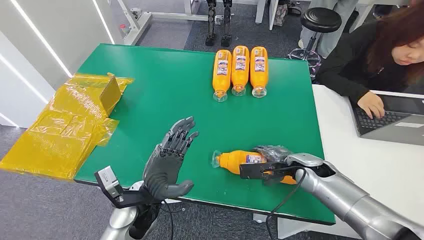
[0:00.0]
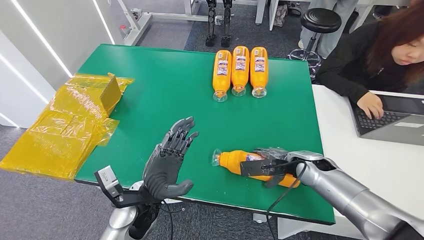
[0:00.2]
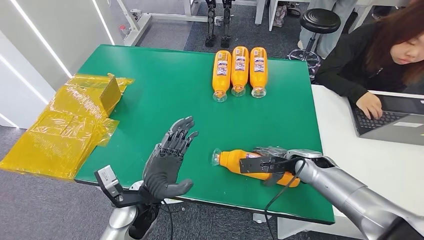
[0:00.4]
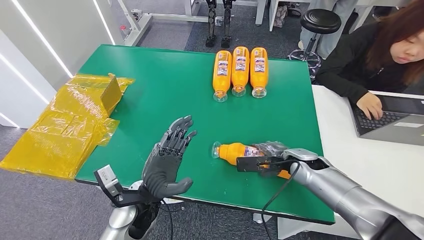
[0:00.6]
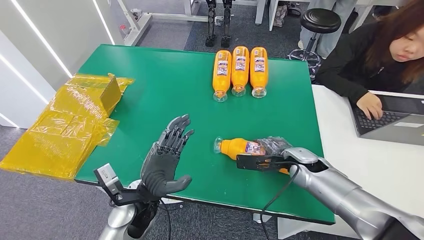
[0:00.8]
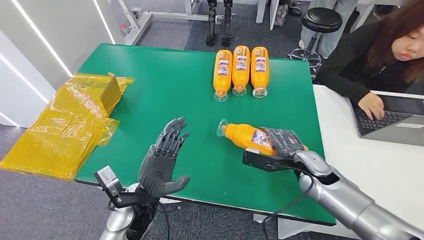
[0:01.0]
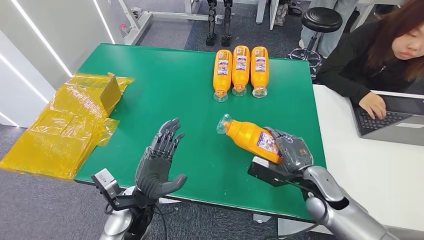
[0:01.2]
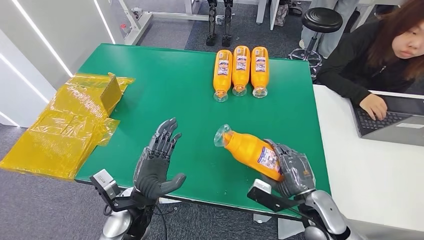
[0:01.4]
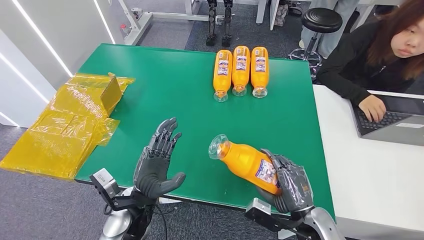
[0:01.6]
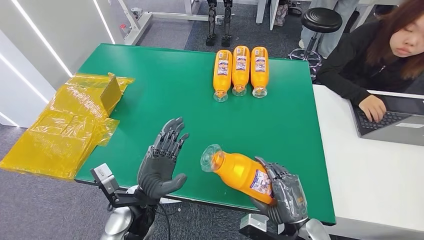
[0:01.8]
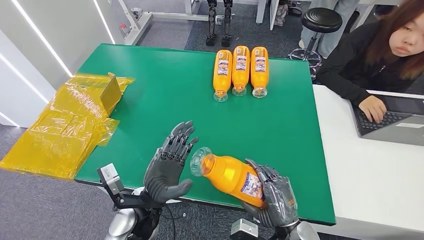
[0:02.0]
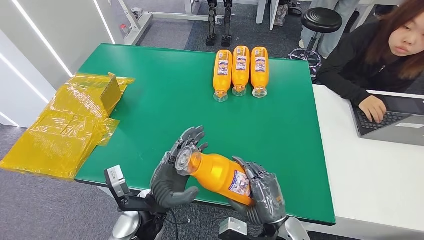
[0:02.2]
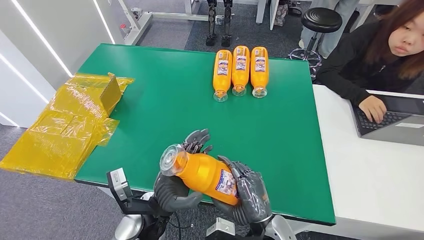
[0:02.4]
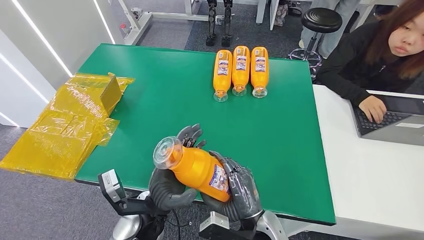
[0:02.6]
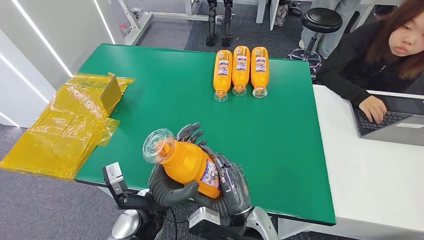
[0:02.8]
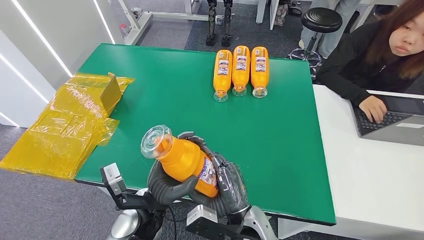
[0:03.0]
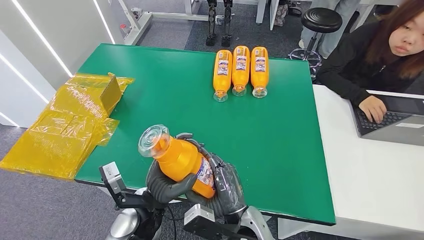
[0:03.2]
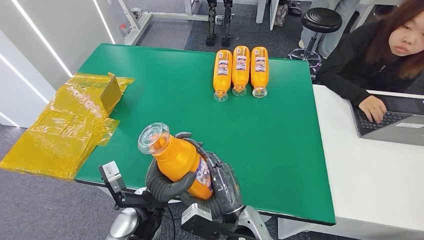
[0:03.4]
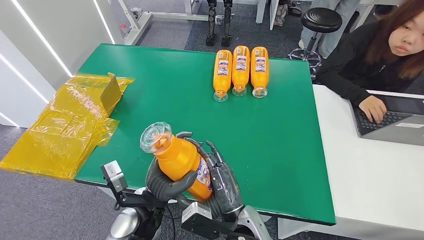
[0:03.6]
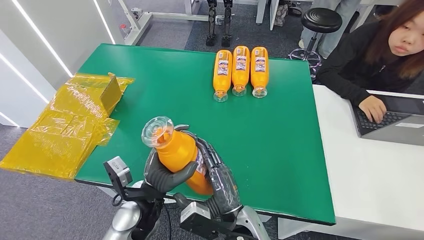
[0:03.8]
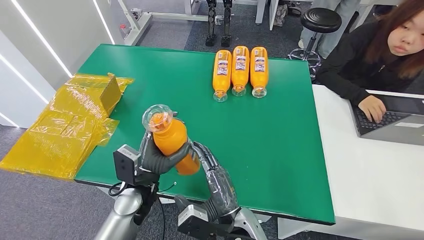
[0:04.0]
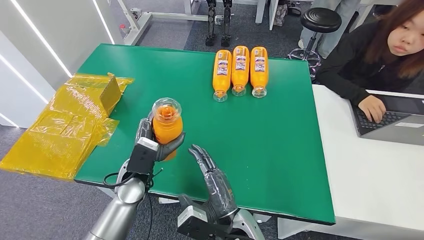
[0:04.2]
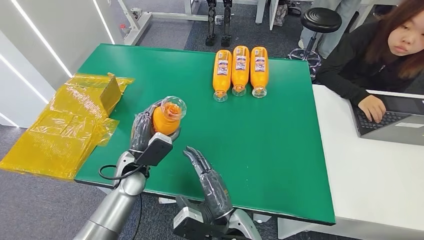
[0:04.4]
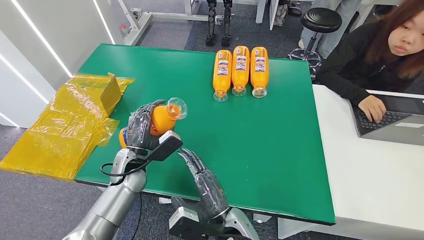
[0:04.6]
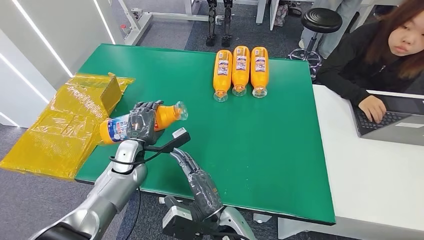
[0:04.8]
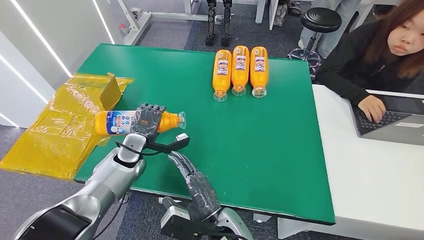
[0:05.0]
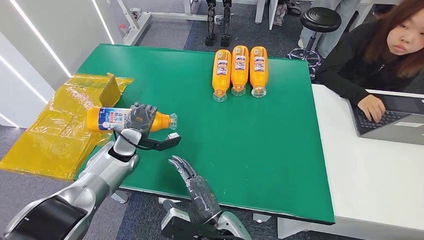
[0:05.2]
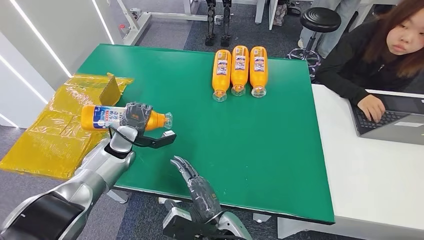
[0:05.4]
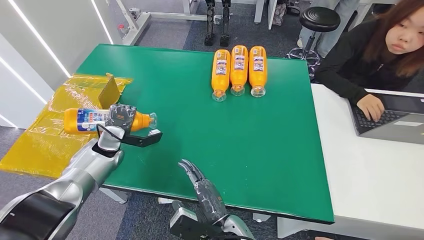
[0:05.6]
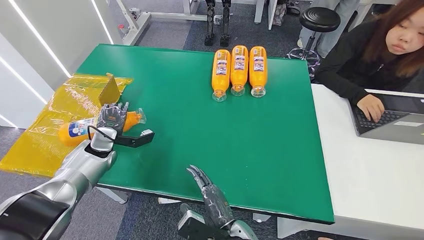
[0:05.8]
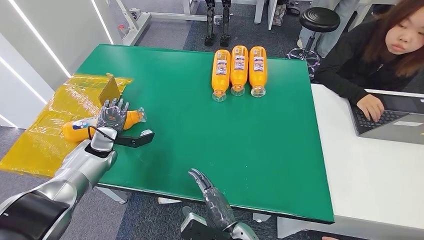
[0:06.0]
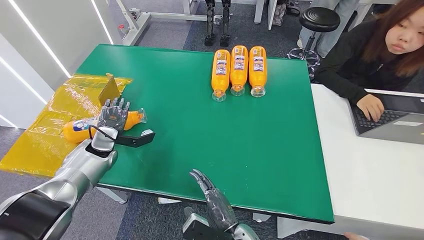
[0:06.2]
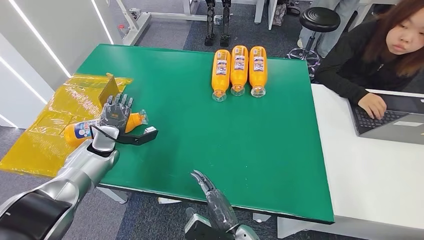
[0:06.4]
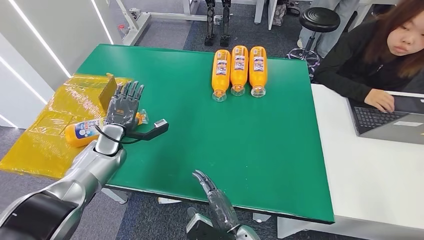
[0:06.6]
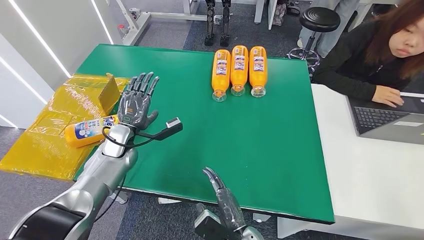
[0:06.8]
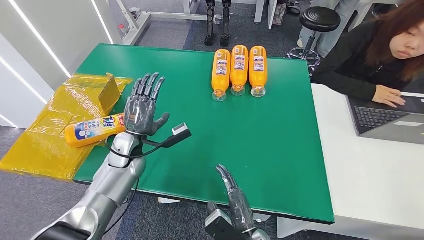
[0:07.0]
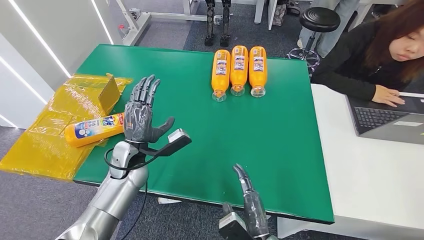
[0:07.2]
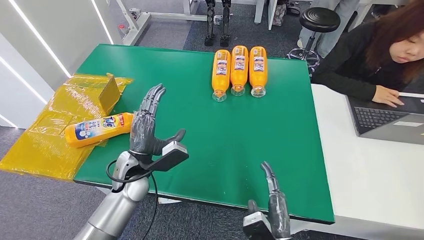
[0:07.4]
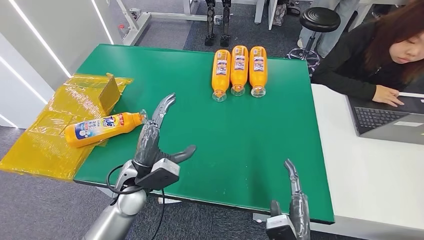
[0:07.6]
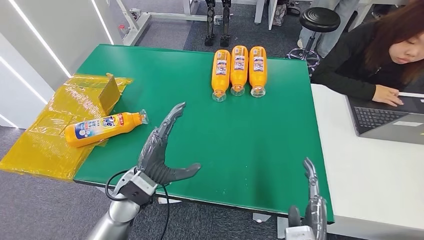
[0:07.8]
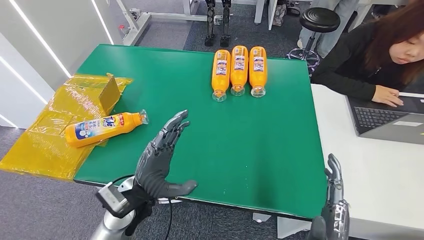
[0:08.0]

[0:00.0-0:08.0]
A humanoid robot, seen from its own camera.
Step, 0:00.0 to 0:02.6: Pick up the bottle from the table.
Step, 0:02.8 to 0:08.0: Turn the bottle to the front side.
0:01.6 to 0:03.2: The right hand shifts some 15 cm to the left.
0:03.2 to 0:04.8: The left hand goes about 20 cm forward and to the left.
0:06.4 to 0:08.0: The left hand is displaced to the right and backward by some 25 cm. Meanwhile the right hand heads to the right, upward and backward, covering some 15 cm.

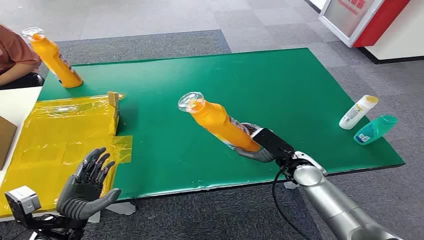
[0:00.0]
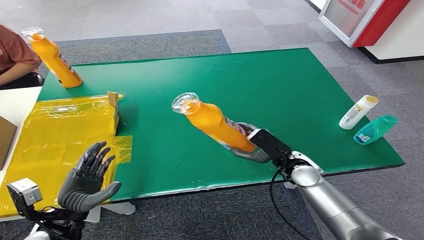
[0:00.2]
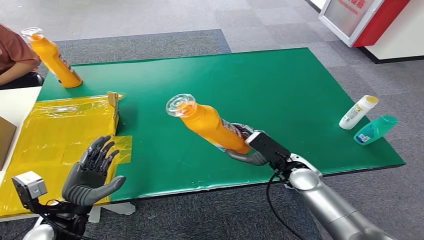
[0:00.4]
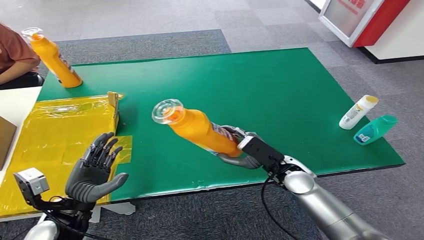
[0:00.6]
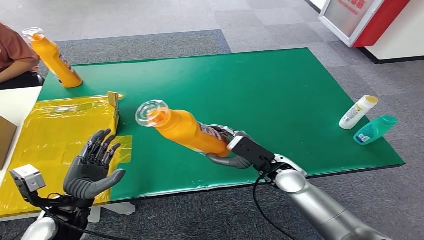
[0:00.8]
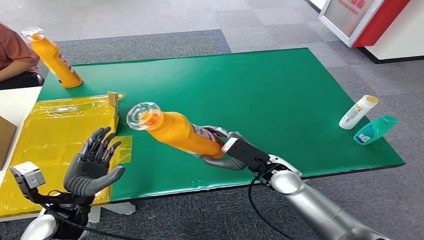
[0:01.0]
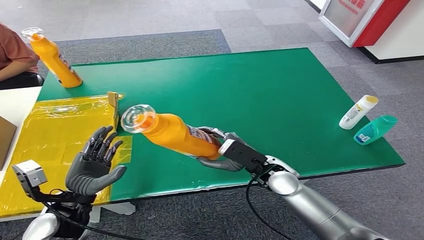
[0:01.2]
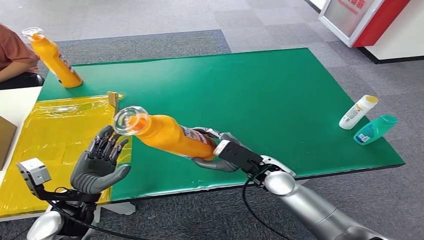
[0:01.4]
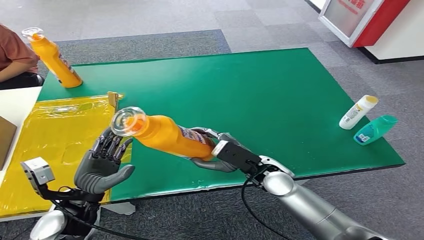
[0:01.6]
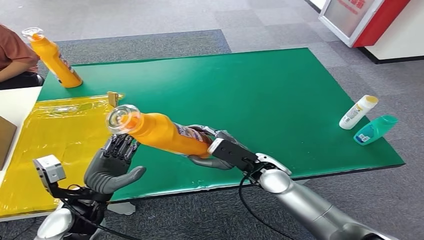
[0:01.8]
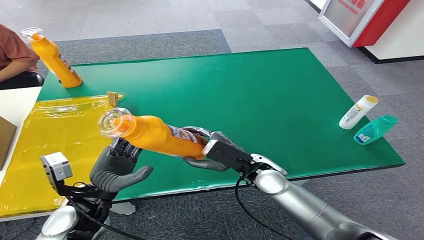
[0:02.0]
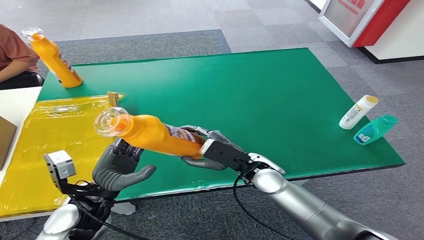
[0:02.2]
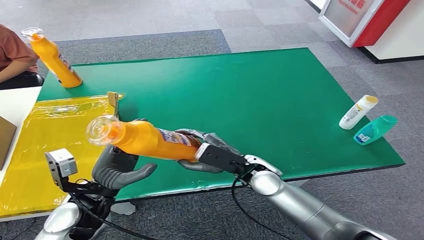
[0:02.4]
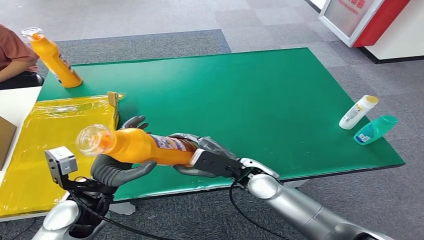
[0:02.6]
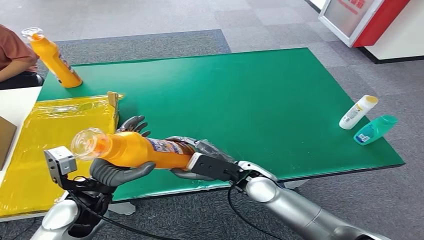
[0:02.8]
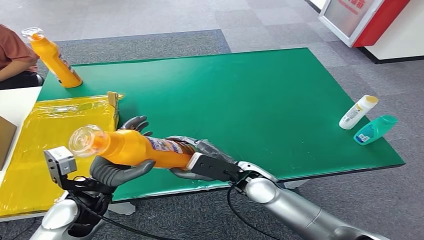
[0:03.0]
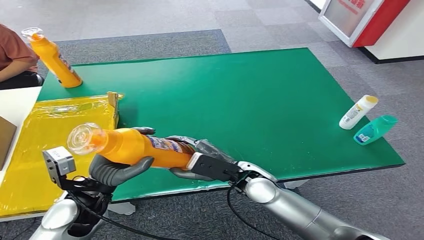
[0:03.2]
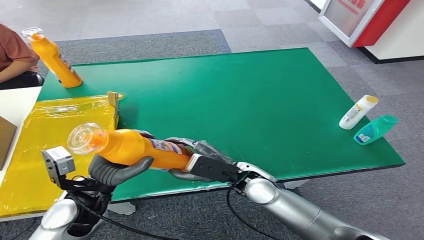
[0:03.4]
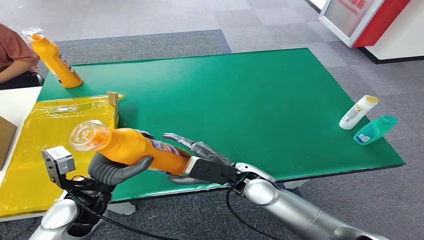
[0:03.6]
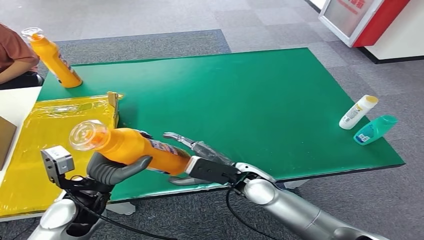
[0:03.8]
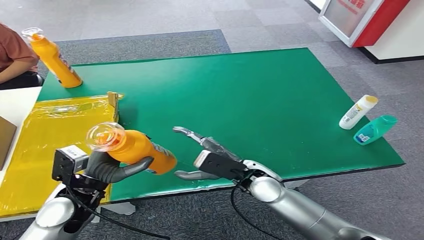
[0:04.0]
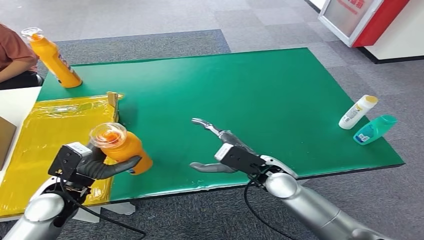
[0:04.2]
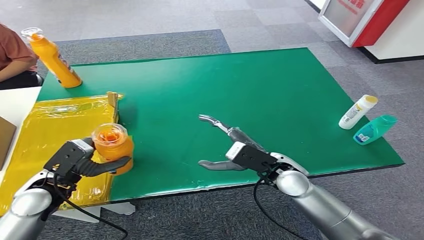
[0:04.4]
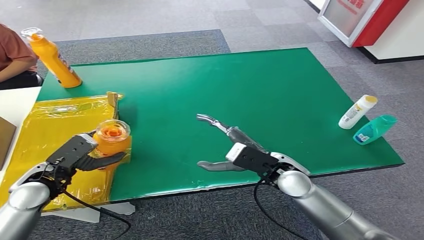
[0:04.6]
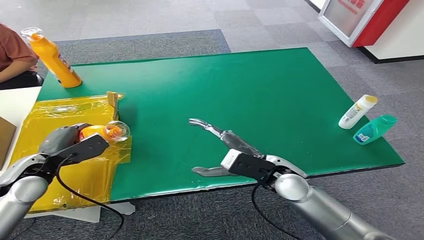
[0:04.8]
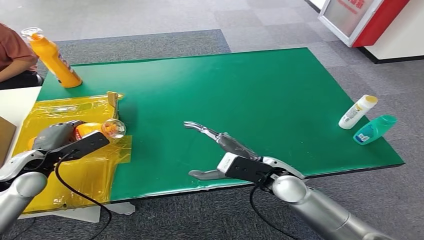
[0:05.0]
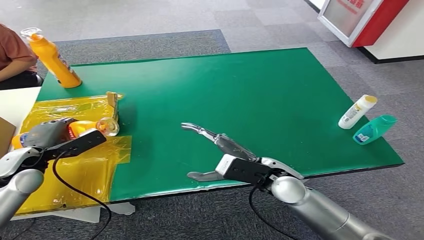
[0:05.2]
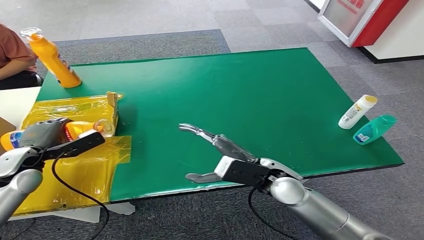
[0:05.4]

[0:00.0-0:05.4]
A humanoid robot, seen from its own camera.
Step, 0:00.0 to 0:00.4: Pick up the bottle from the table.
Step, 0:00.8 to 0:05.4: Turn the bottle to the front side.
0:01.4 to 0:04.0: The hands move only a little.
0:04.0 to 0:05.4: The left hand heads to the left and forward, covering about 15 cm.

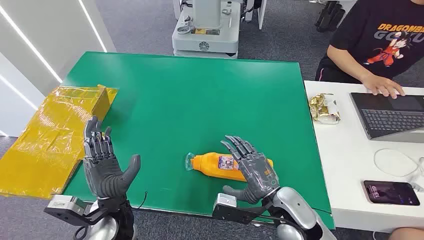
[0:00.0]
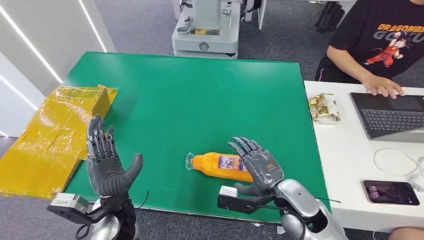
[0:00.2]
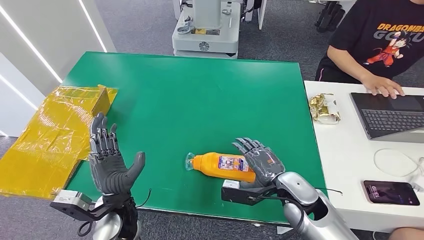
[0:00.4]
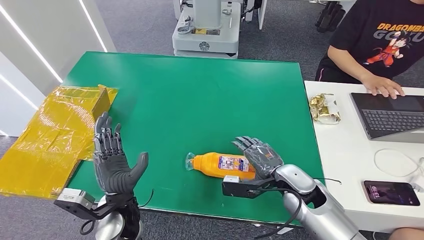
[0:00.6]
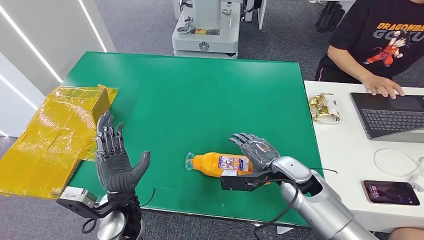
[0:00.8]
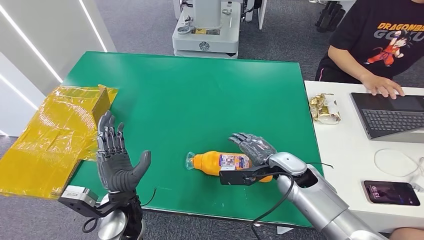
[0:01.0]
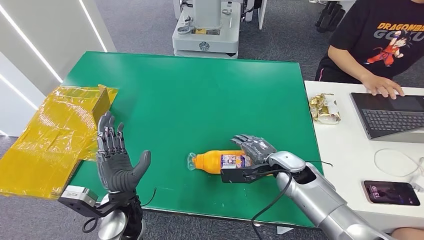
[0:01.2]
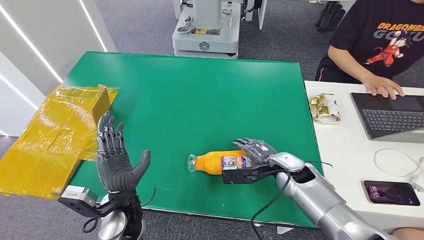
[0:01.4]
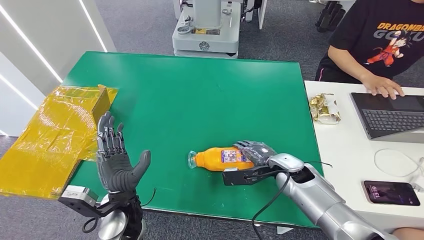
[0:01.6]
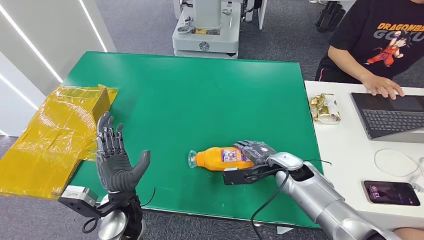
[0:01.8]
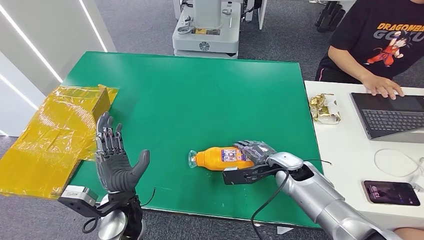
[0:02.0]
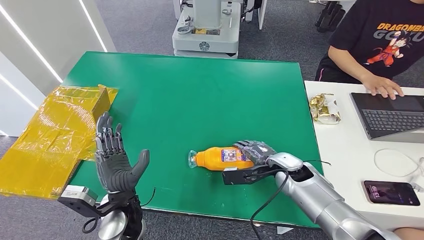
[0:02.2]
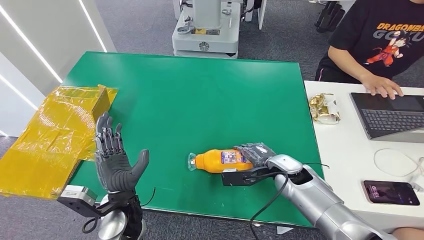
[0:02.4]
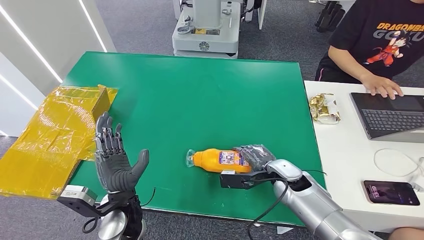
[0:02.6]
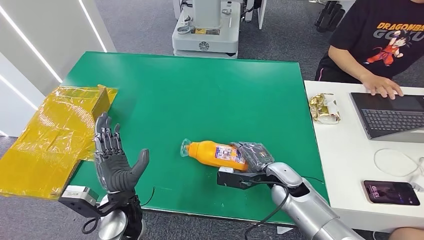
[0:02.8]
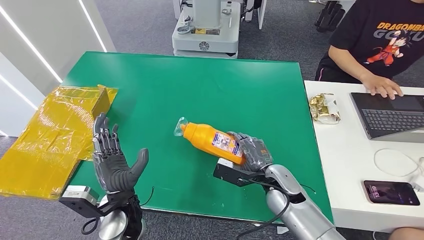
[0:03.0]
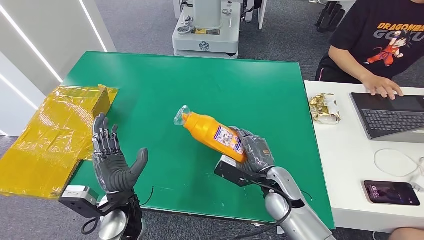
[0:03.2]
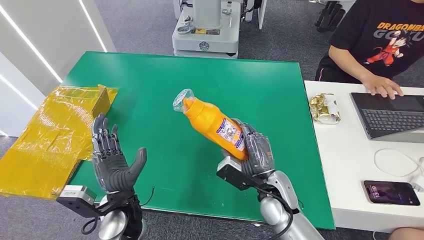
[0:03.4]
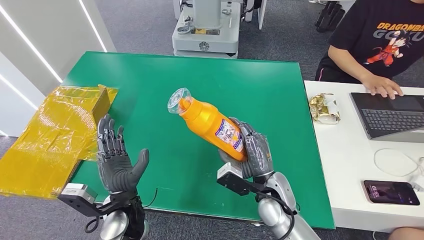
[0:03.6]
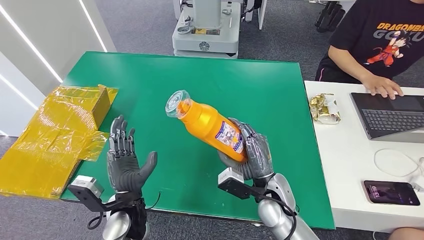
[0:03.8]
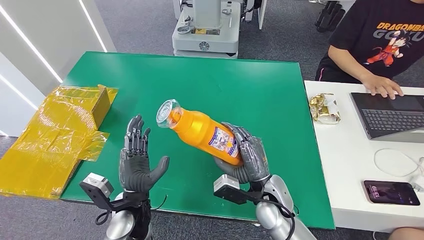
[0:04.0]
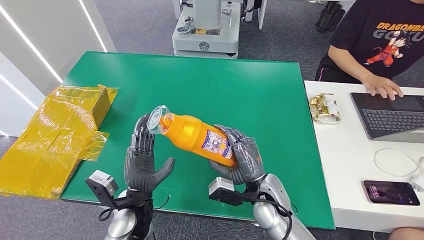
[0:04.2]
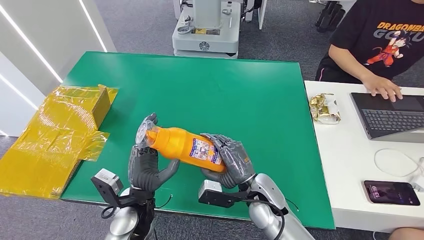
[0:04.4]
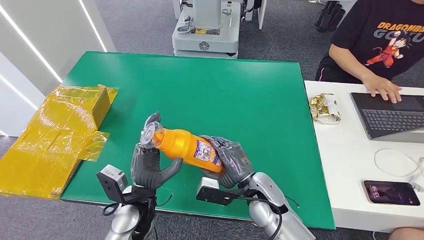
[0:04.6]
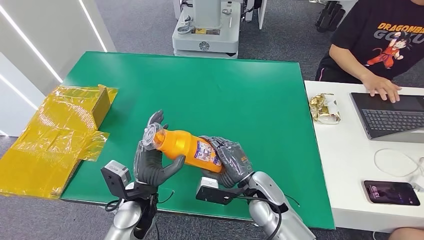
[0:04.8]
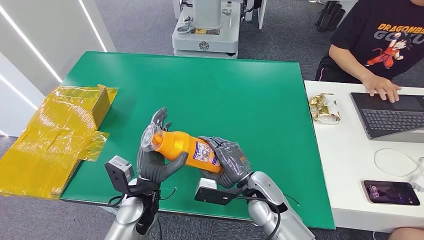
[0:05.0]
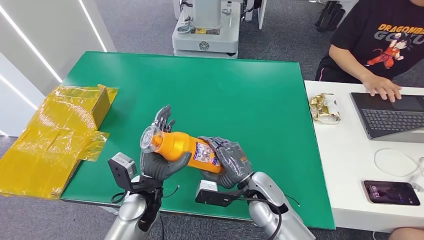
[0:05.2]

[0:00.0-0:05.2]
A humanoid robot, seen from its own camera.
Step, 0:00.0 to 0:03.0: Pick up the bottle from the table.
0:01.8 to 0:03.4: The right hand travels backward and to the left by some 10 cm.
